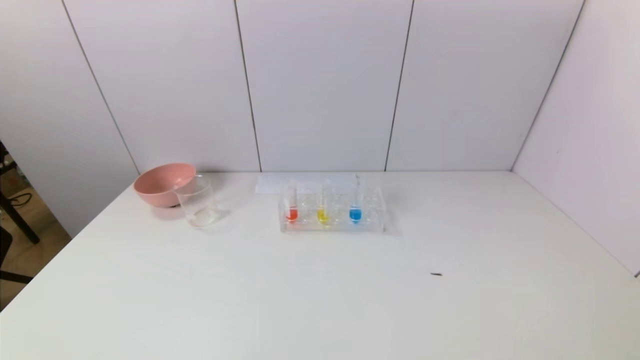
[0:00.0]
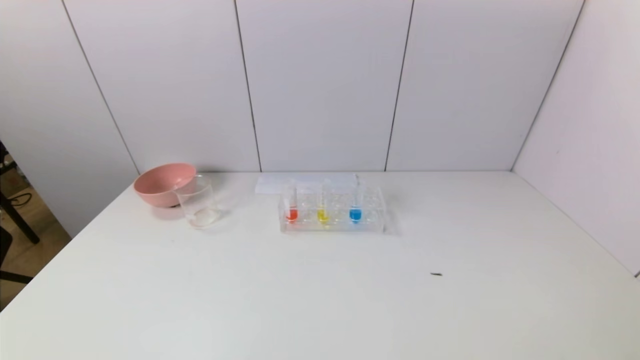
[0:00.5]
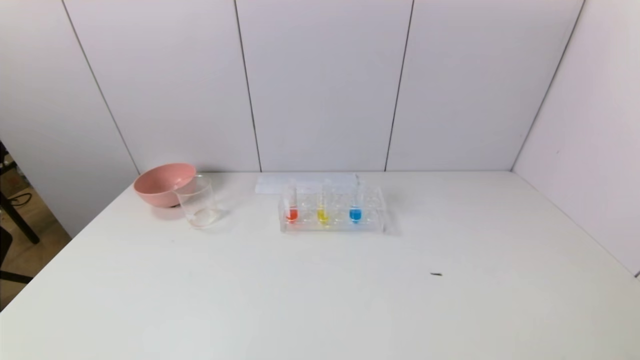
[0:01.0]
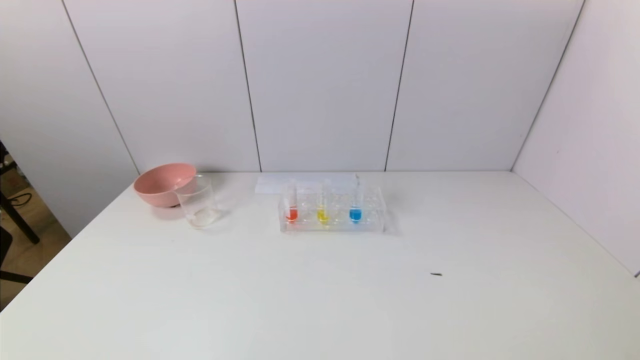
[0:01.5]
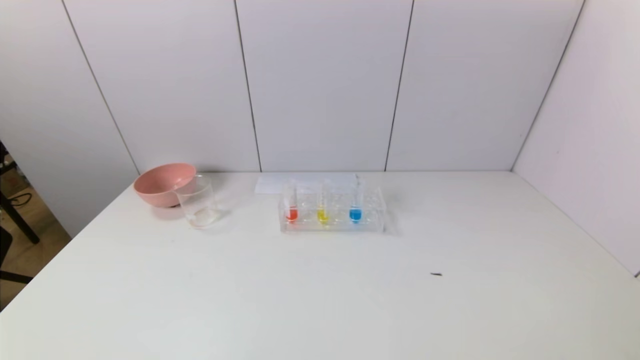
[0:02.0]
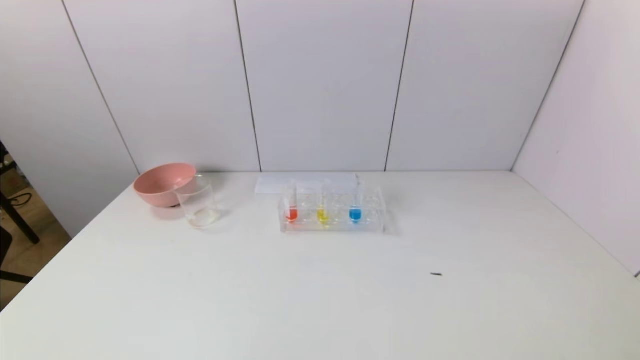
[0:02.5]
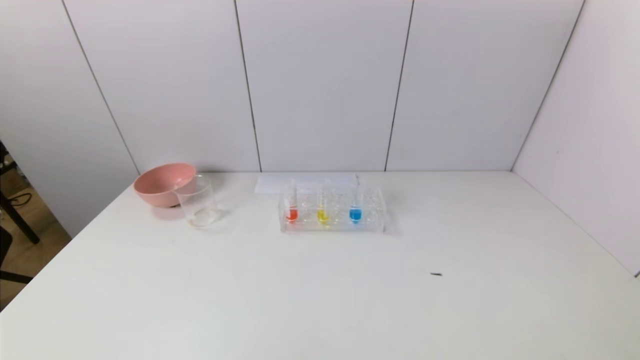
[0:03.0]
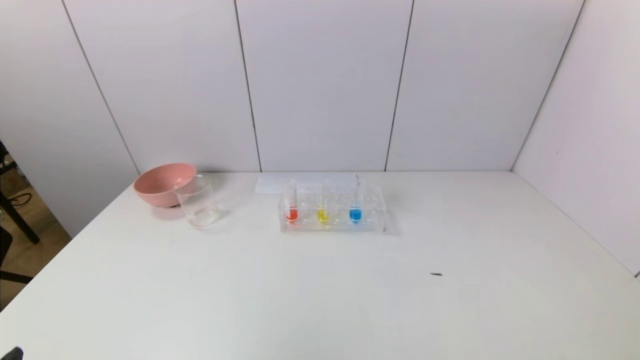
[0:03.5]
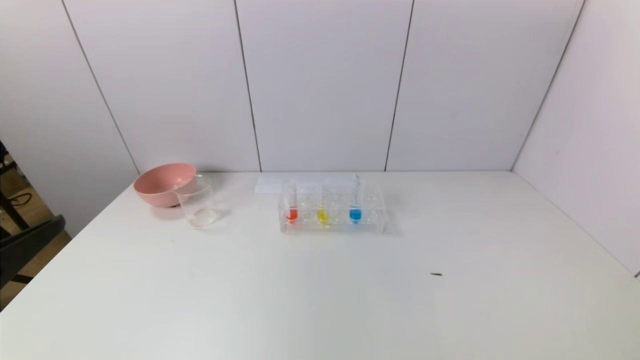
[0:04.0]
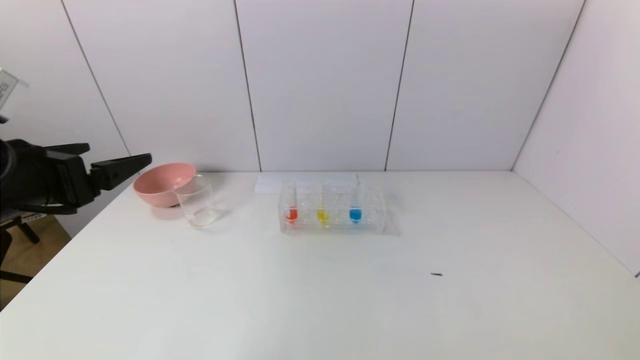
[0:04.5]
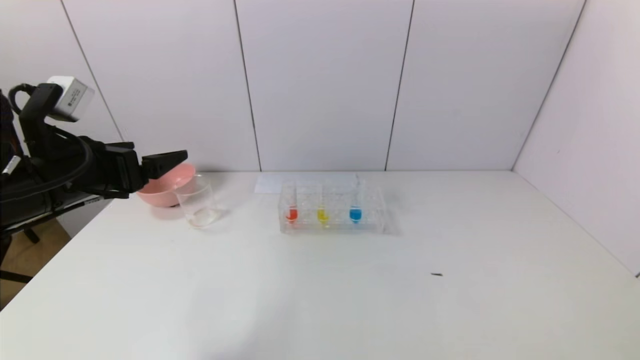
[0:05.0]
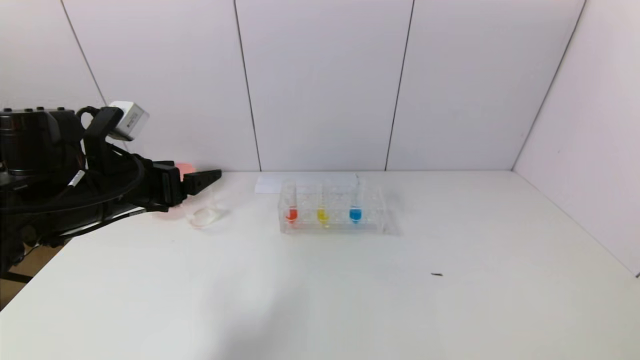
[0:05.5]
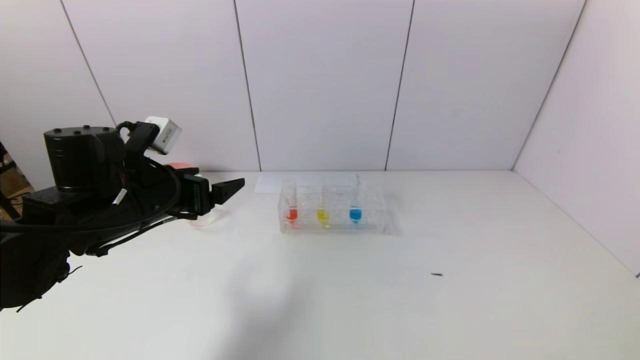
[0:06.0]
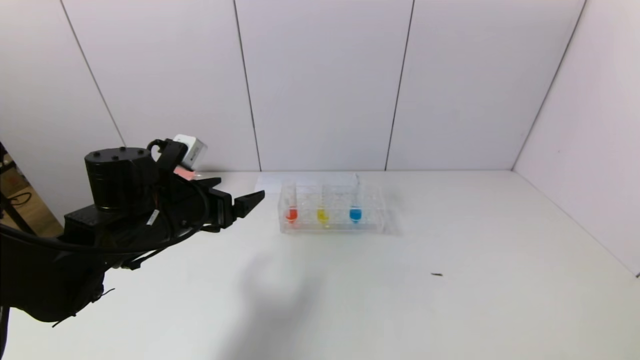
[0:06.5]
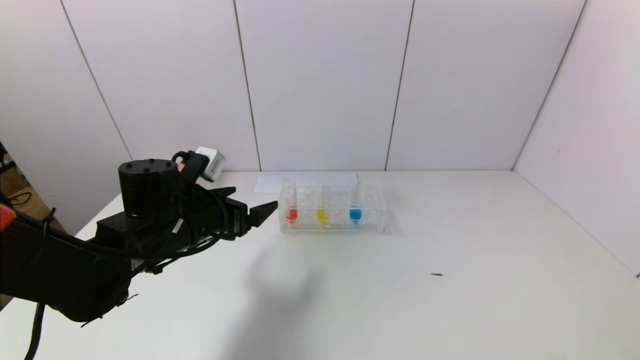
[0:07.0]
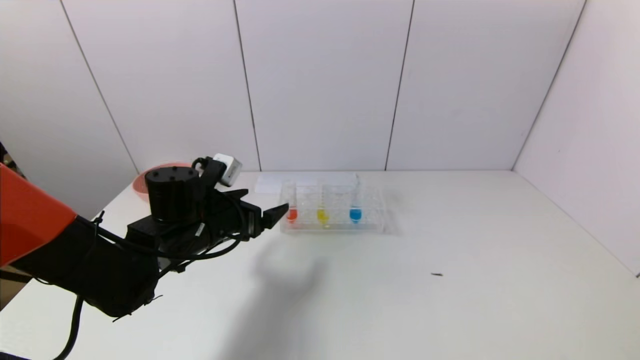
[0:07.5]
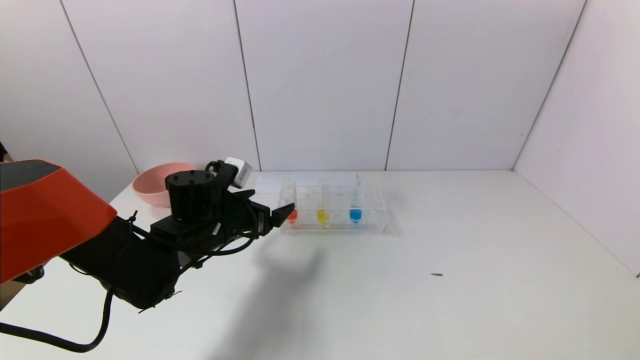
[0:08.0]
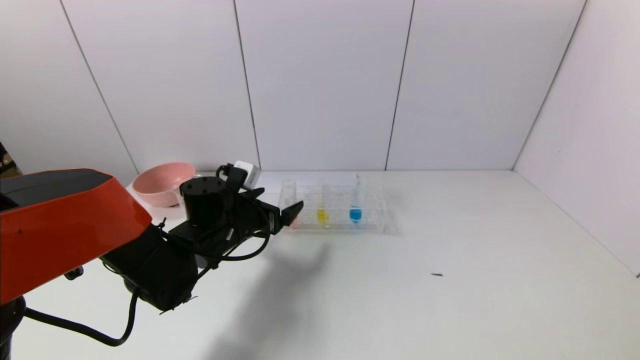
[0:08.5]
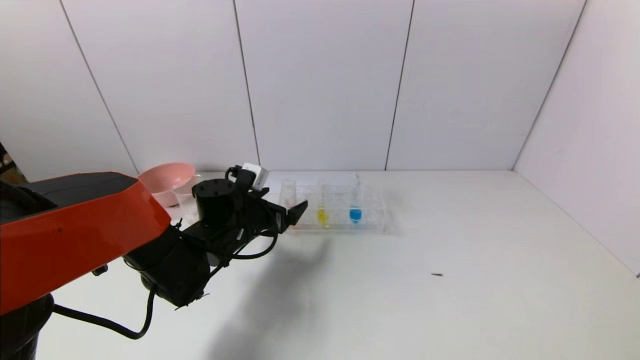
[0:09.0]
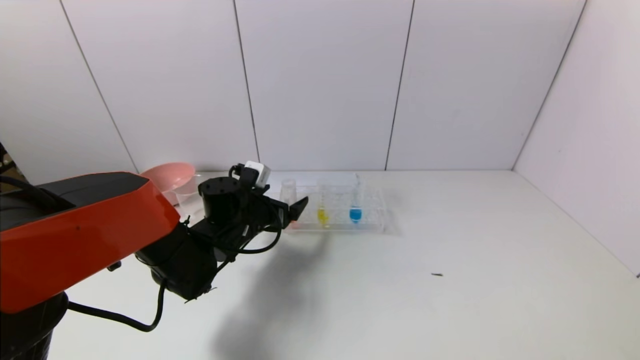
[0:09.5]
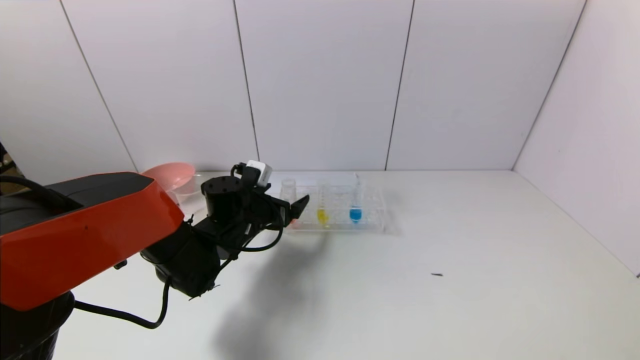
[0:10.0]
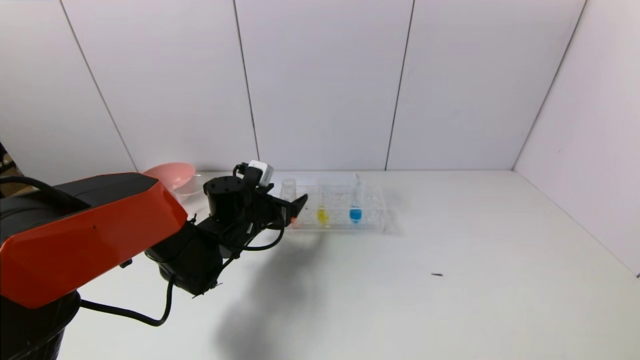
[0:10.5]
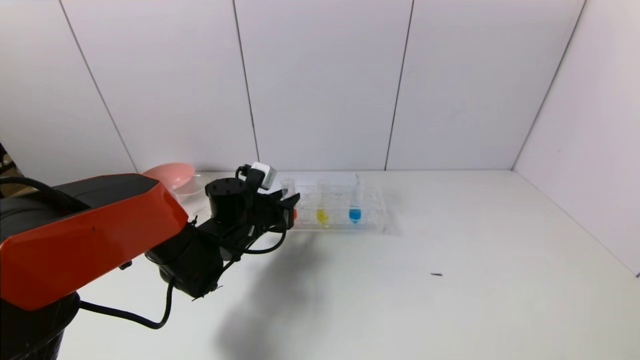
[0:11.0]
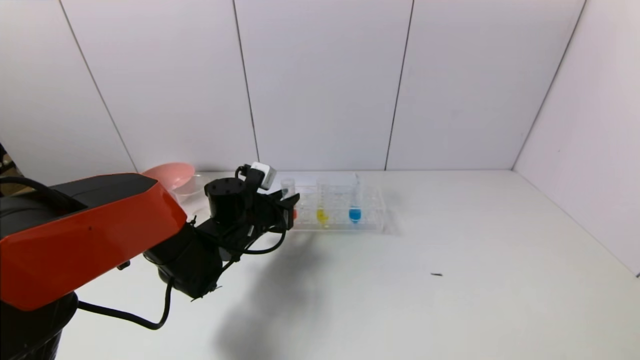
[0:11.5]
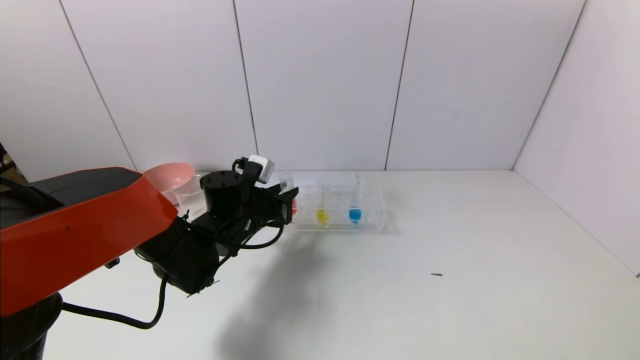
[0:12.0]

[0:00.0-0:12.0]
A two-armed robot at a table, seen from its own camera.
Task of the whole recording: pick up the test tube with yellow pigment and the test tube with red pigment by grippers and pour them into the beaker.
Step, 0:00.0 to 0:11.0: Grasp the red reagent with the left gripper.
0:00.0 to 0:02.0: Both grippers stay put.
0:02.0 to 0:04.0: The left gripper is displaced upward and forward by roughly 20 cm.
0:04.0 to 0:06.0: The left gripper goes roughly 20 cm forward.
0:06.0 to 0:08.0: The left gripper is displaced downward, to the right and forward by some 10 cm.
0:08.0 to 0:10.0: The left gripper changes place by roughly 5 cm.
0:10.0 to 0:12.0: The left gripper closes its fingers.

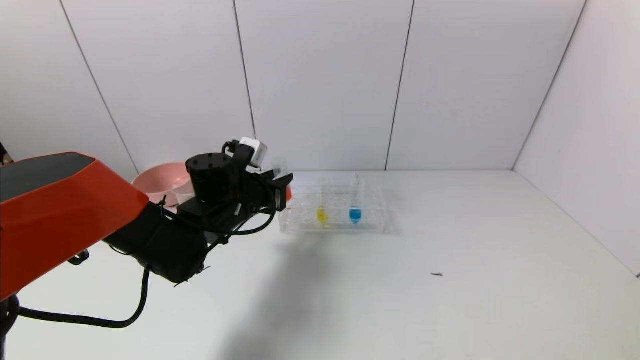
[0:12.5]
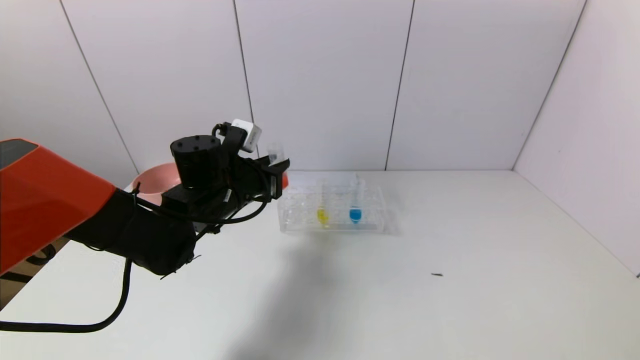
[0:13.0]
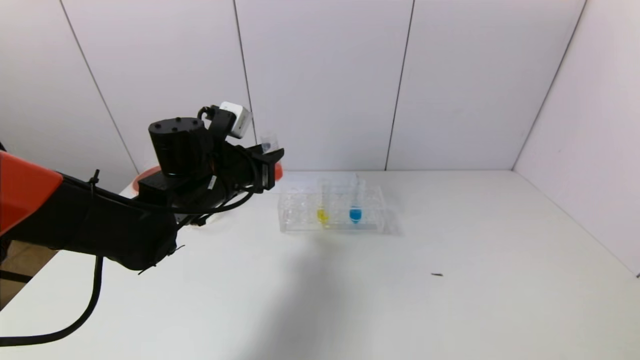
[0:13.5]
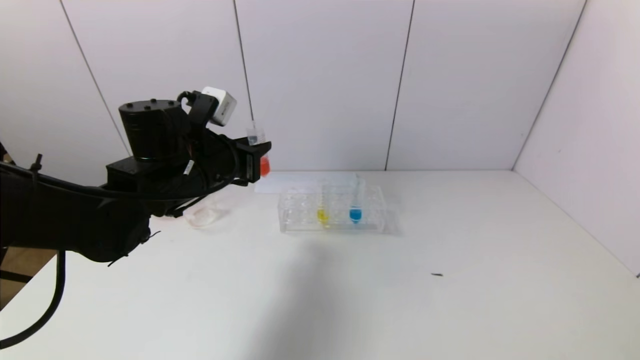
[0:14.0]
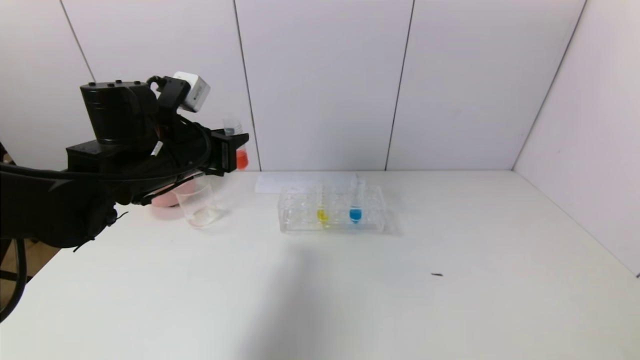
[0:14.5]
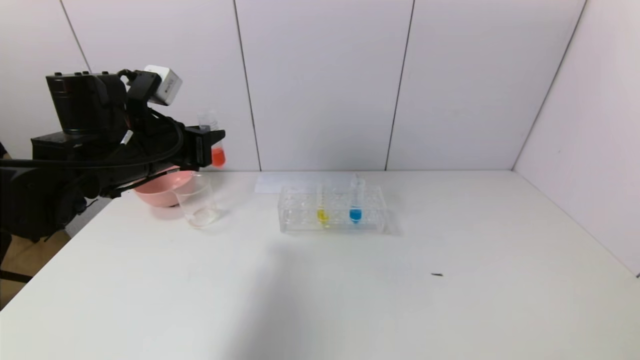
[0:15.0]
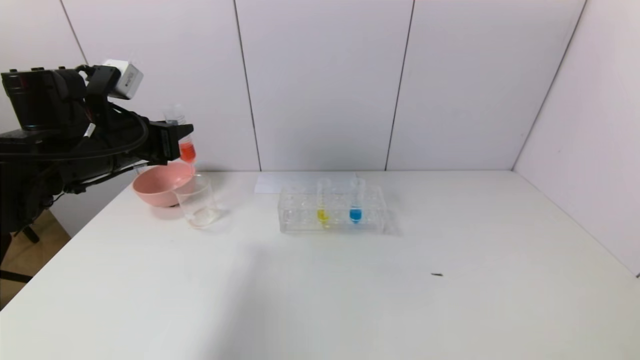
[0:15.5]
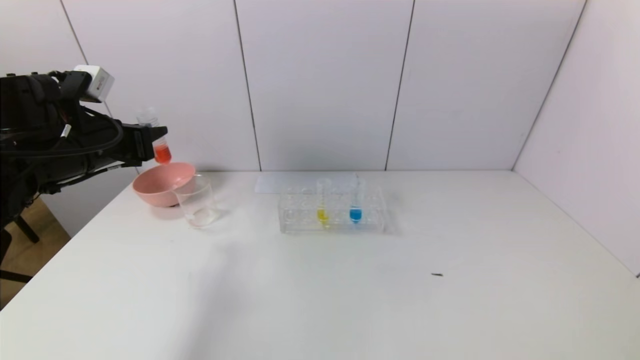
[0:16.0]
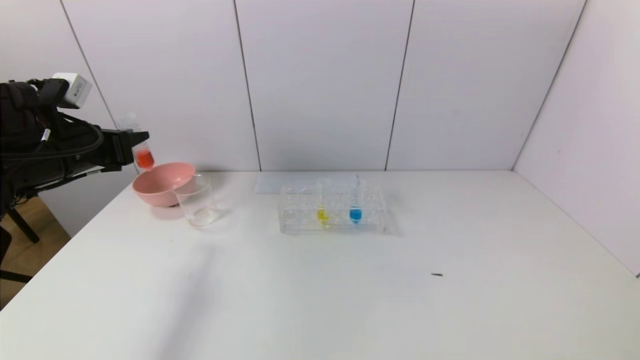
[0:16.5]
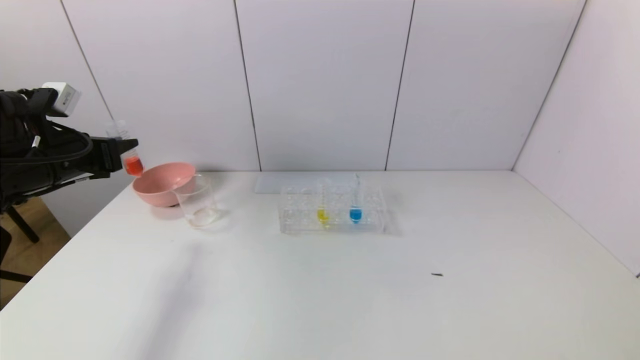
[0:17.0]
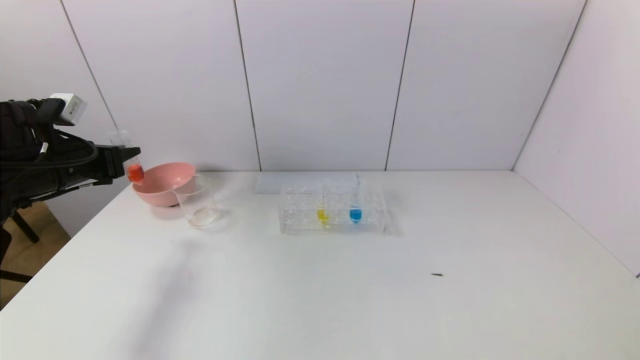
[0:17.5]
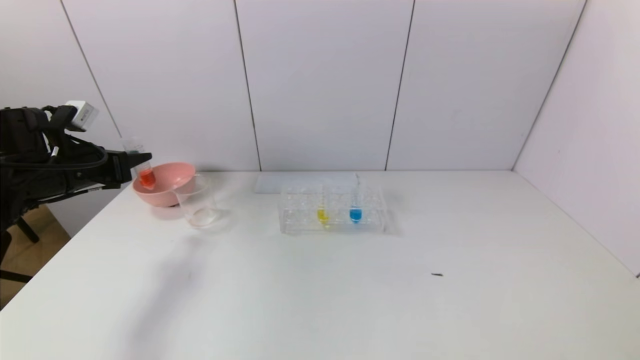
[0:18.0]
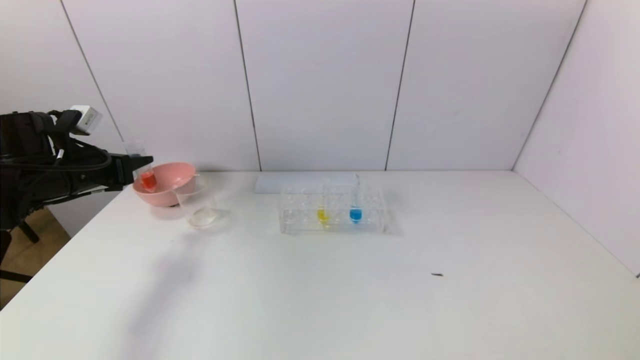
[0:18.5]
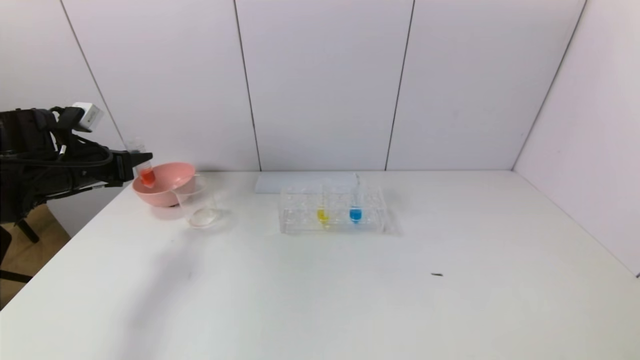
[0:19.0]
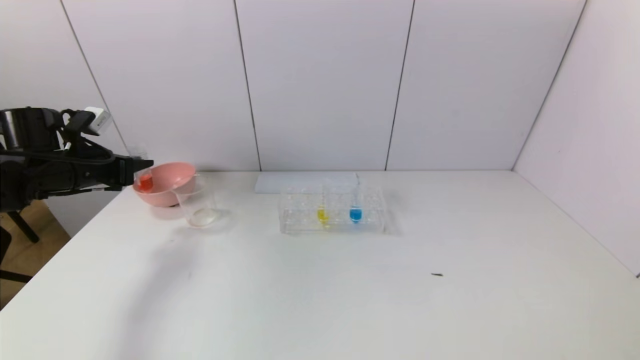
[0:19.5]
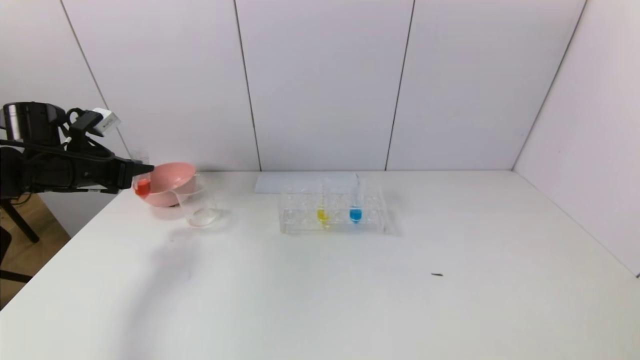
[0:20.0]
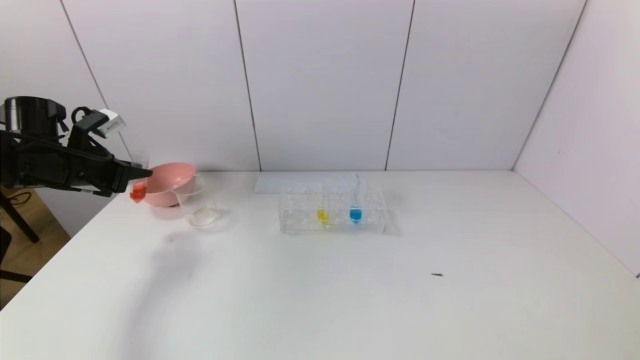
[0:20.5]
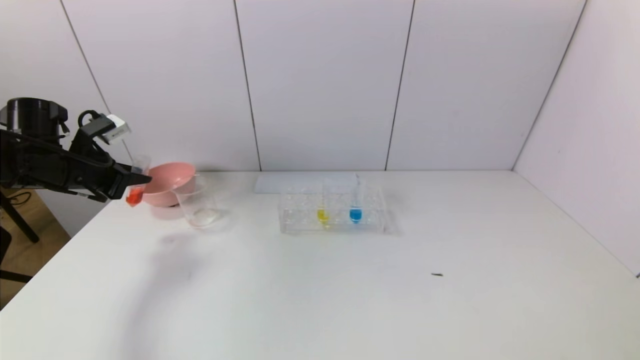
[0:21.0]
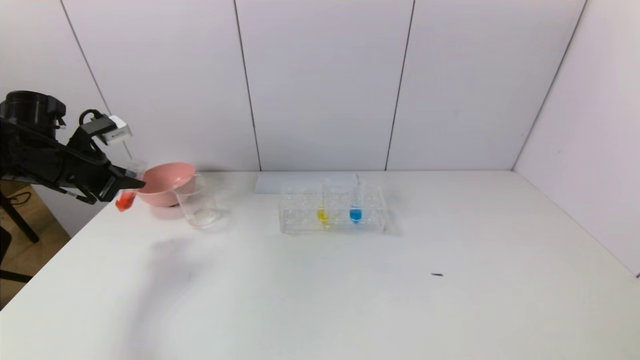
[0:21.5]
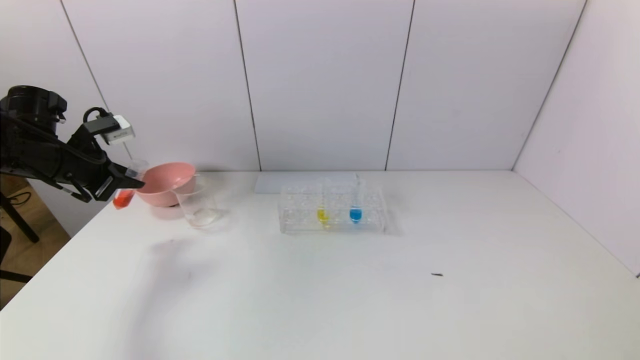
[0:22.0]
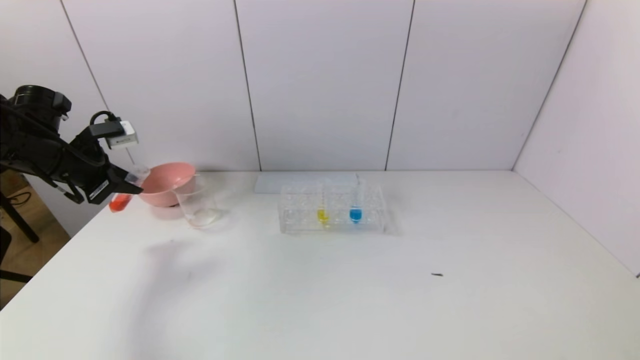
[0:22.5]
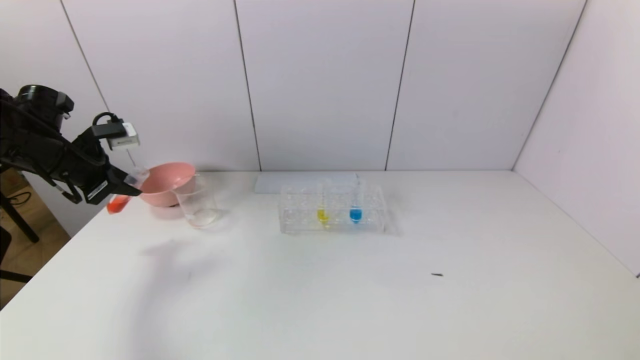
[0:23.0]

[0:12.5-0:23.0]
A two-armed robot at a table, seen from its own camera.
Task of the whole recording: pick up the test tube with yellow pigment and the test tube with red pigment by grippers and pour them into the beaker.
0:12.5 to 0:14.5: The left gripper moves upward and to the left, approximately 10 cm.
0:14.5 to 0:16.5: The left gripper is displaced to the left by about 15 cm.
0:16.5 to 0:19.0: The left gripper shifts by approximately 5 cm.
